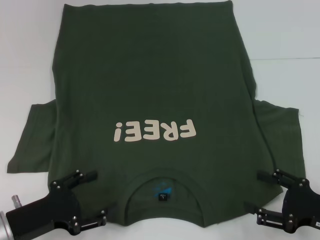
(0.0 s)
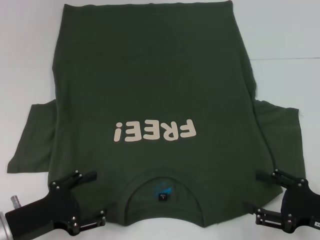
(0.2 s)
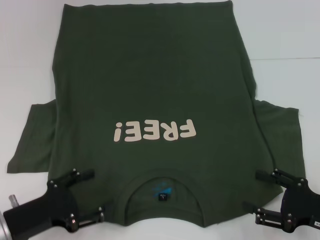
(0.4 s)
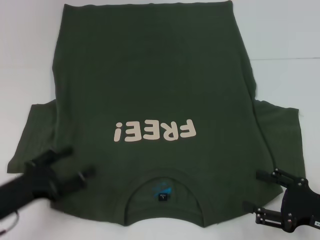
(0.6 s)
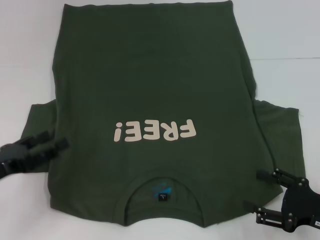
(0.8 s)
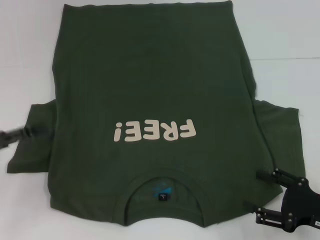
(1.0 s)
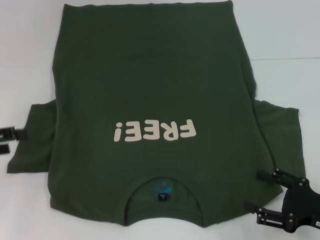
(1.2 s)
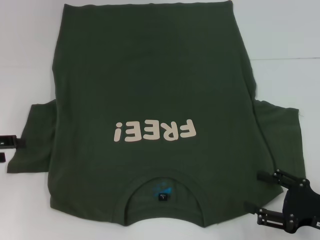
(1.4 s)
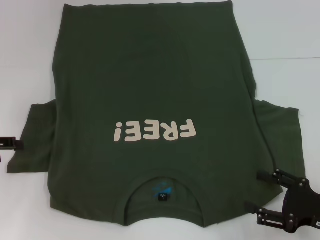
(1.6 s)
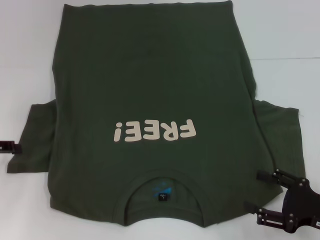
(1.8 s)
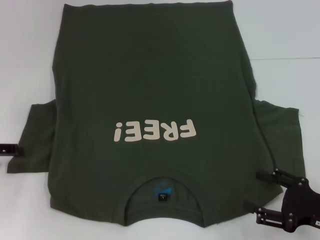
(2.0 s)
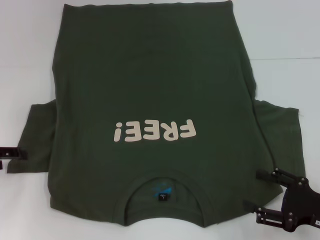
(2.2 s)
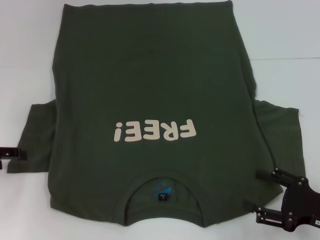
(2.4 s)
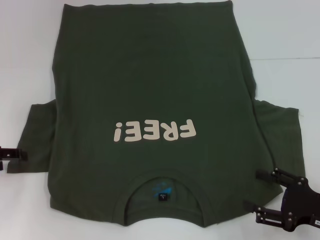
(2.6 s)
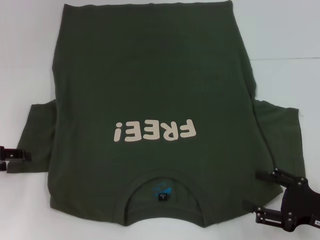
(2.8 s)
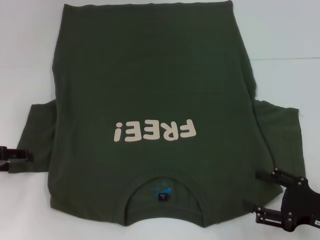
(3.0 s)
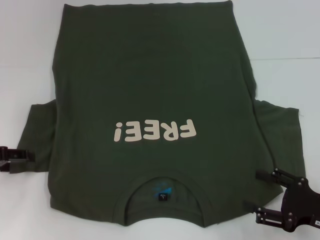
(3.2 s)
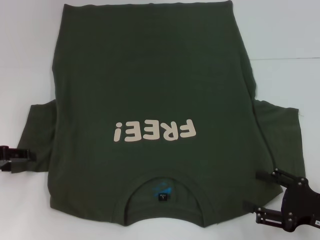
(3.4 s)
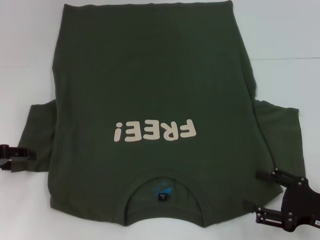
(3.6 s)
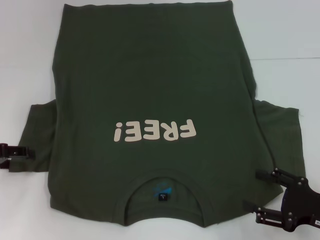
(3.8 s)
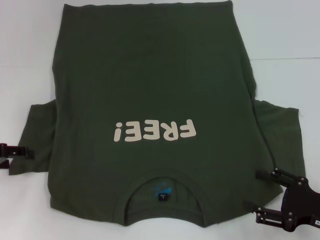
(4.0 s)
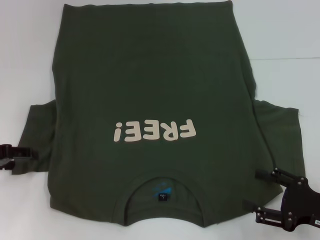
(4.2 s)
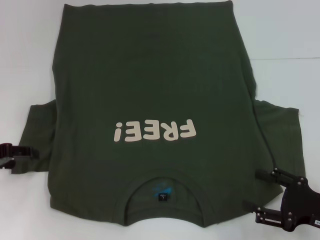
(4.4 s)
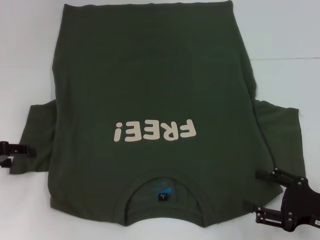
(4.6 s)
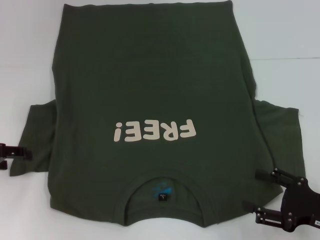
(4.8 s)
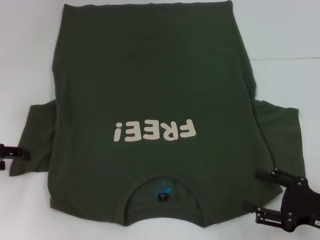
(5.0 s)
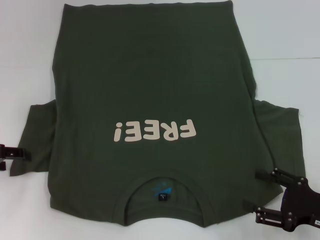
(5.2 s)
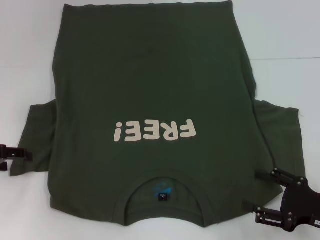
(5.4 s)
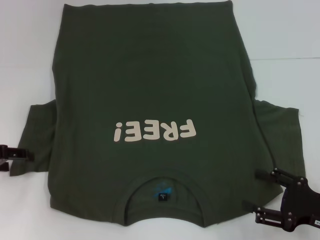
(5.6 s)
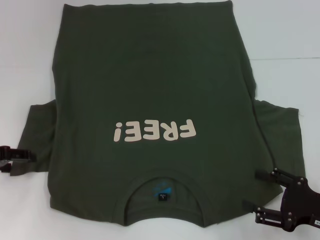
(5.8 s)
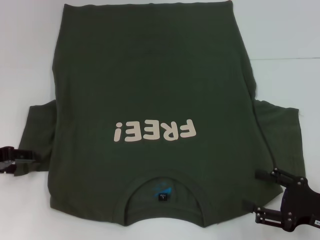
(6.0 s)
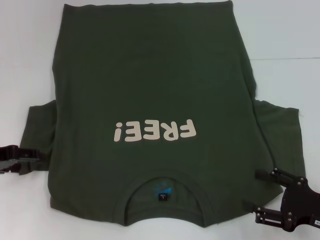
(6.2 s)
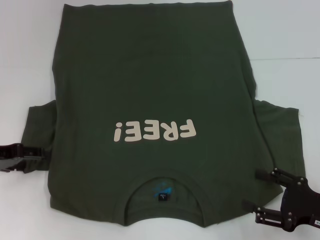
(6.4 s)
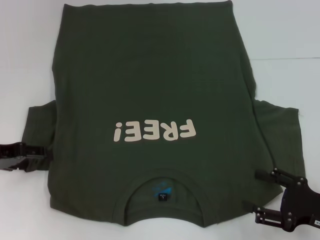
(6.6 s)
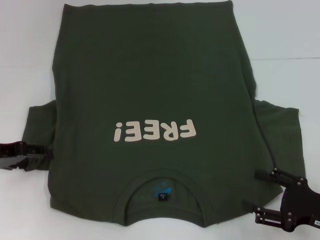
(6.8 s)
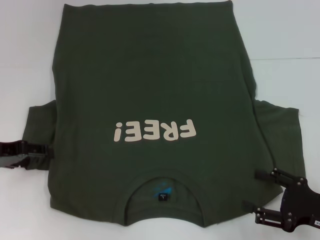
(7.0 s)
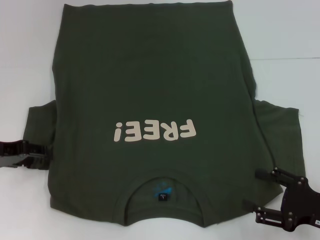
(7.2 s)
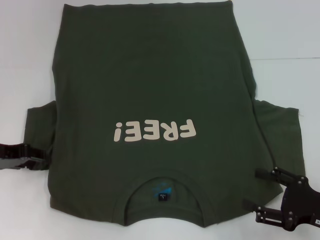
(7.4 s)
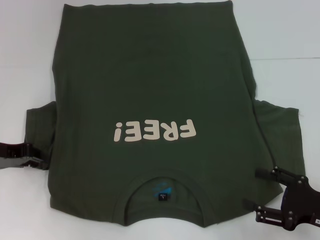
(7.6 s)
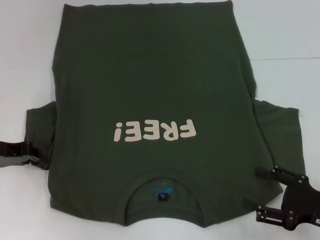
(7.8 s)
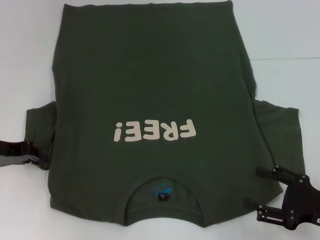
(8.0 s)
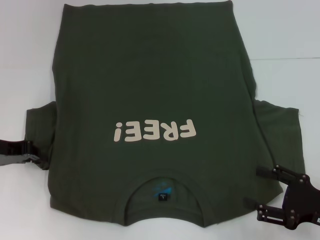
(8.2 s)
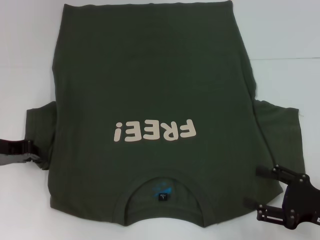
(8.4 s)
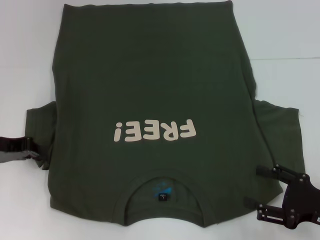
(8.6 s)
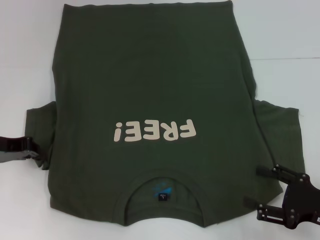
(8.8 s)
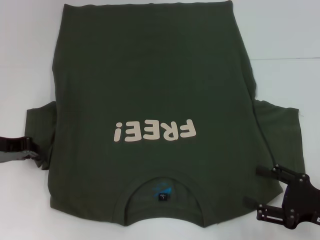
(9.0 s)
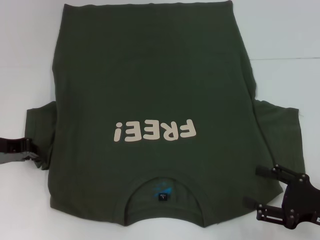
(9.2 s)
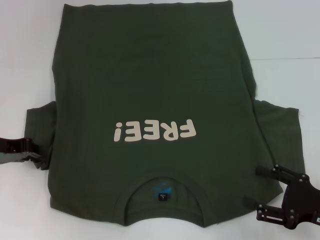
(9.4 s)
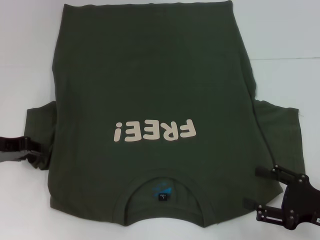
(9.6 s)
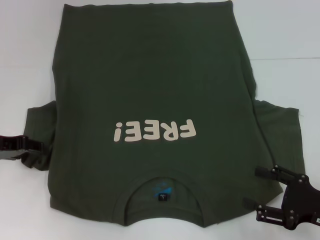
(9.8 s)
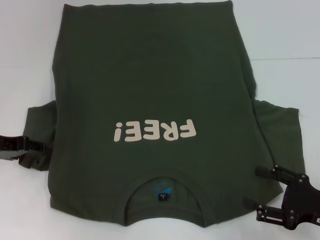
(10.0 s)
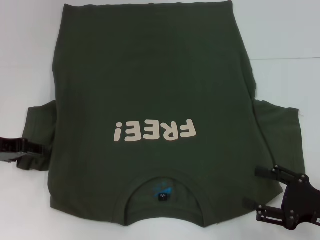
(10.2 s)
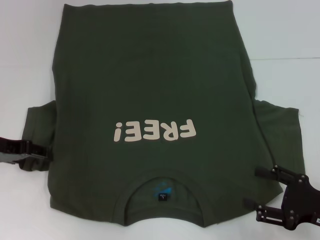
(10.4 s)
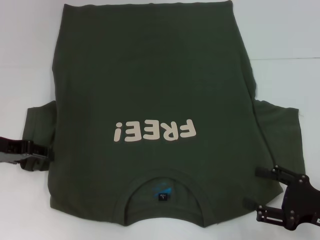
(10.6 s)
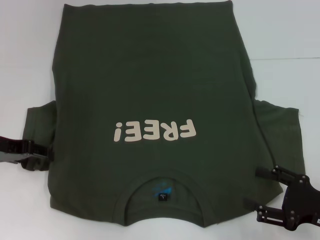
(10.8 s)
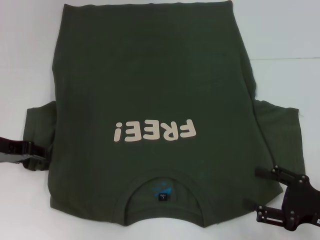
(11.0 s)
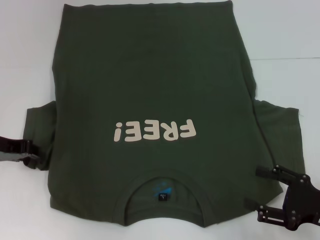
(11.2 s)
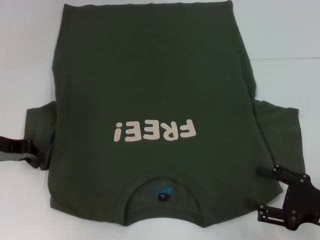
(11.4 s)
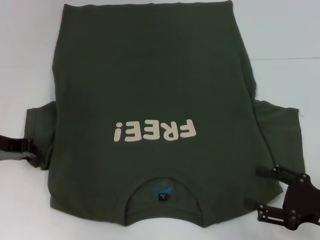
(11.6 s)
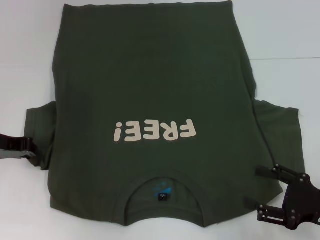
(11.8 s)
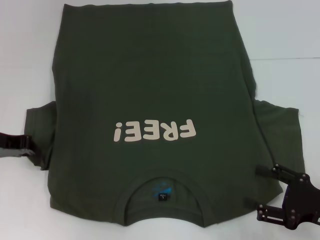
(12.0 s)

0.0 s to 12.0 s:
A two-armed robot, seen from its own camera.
0.0 to 1.6 s: The left gripper goes approximately 20 cm to the left, forward and upward.
1.6 to 3.0 s: The grippers make only small movements.
3.0 to 6.0 s: Both grippers stay put.
6.0 to 7.6 s: The left gripper closes.
7.6 to 9.0 s: The left gripper closes its fingers.
9.0 to 10.4 s: The left gripper opens up.
10.4 to 12.0 s: The left gripper closes up.

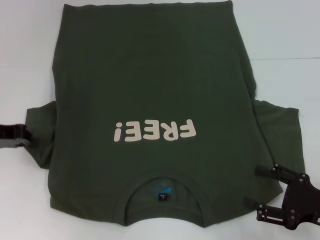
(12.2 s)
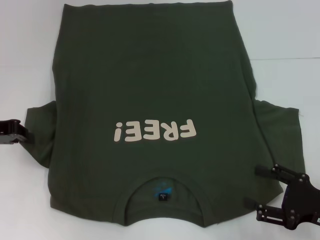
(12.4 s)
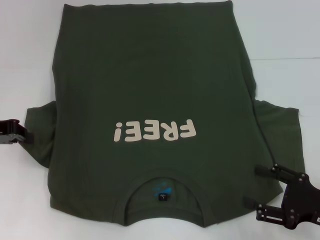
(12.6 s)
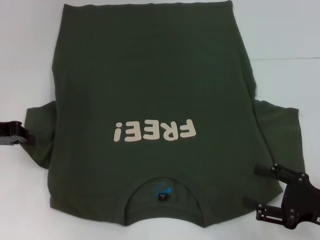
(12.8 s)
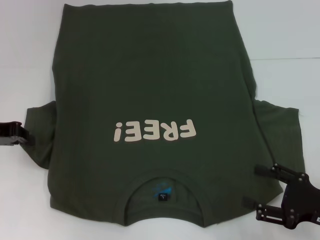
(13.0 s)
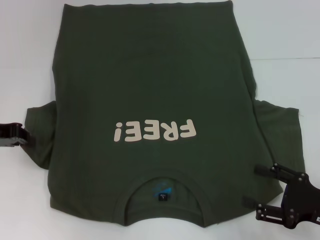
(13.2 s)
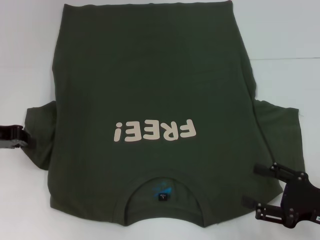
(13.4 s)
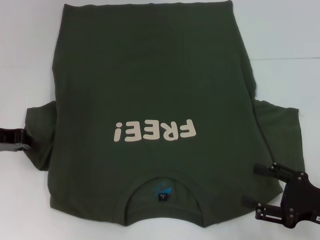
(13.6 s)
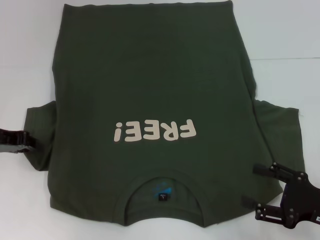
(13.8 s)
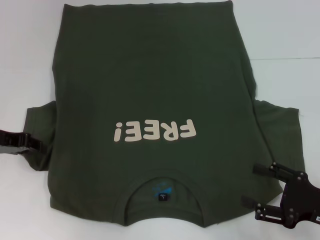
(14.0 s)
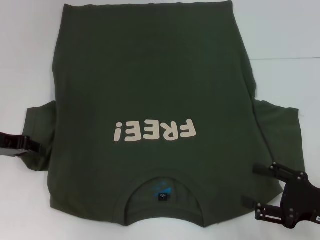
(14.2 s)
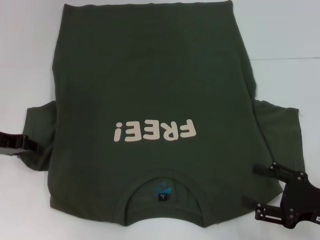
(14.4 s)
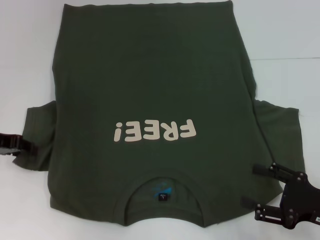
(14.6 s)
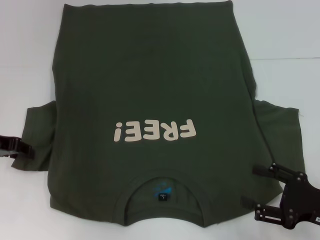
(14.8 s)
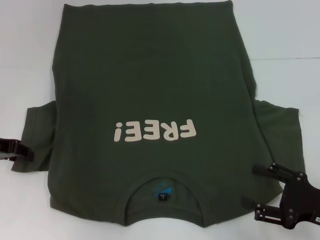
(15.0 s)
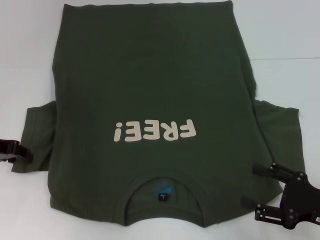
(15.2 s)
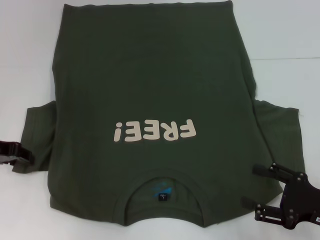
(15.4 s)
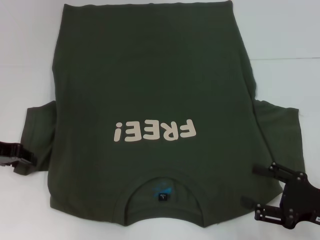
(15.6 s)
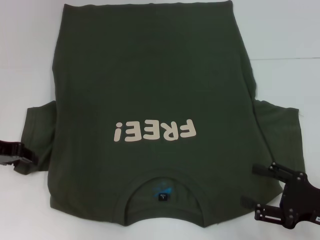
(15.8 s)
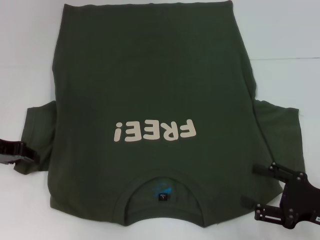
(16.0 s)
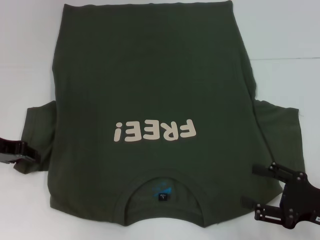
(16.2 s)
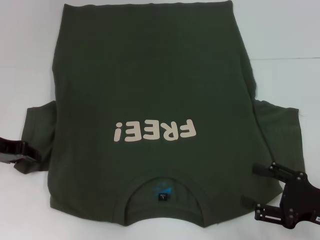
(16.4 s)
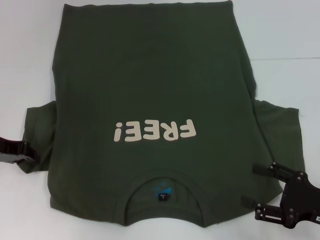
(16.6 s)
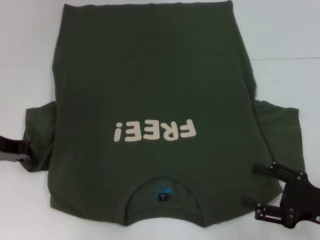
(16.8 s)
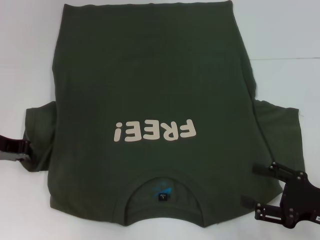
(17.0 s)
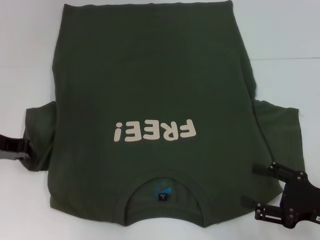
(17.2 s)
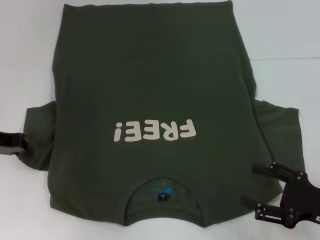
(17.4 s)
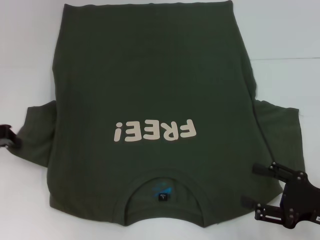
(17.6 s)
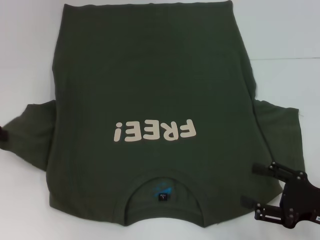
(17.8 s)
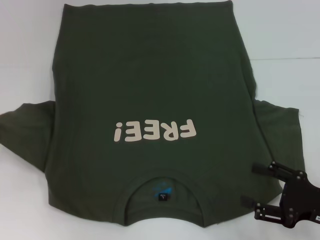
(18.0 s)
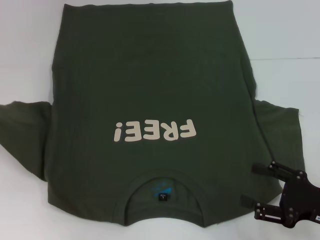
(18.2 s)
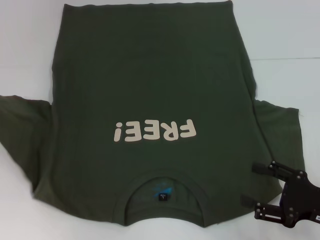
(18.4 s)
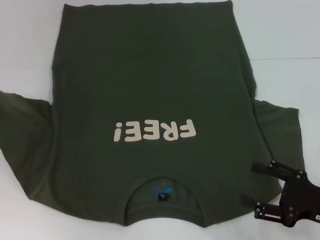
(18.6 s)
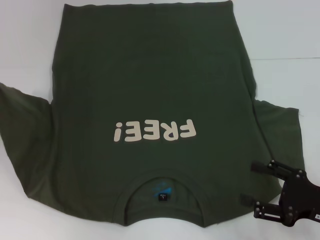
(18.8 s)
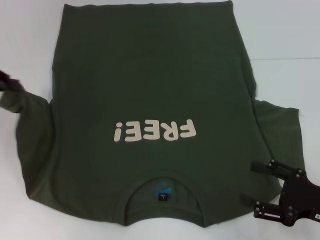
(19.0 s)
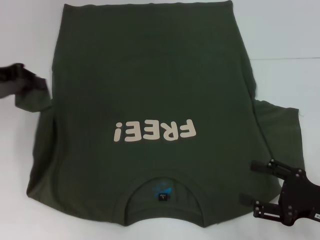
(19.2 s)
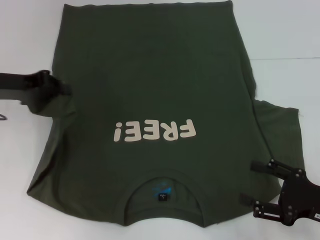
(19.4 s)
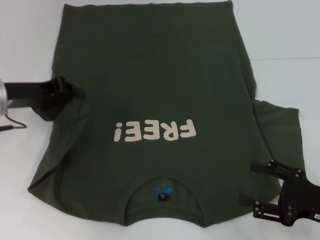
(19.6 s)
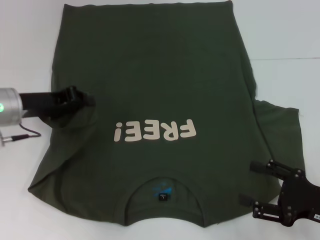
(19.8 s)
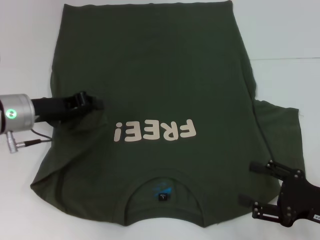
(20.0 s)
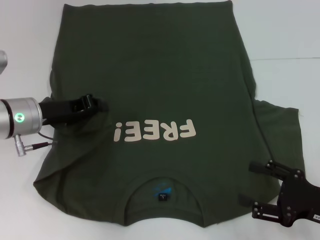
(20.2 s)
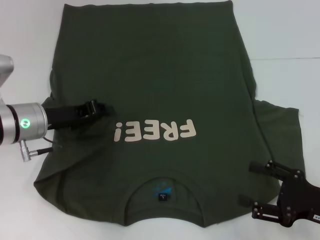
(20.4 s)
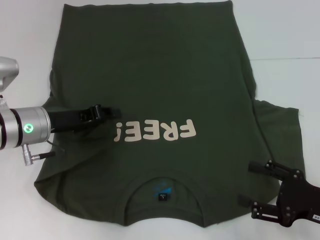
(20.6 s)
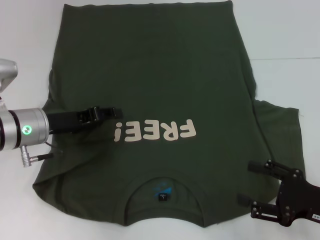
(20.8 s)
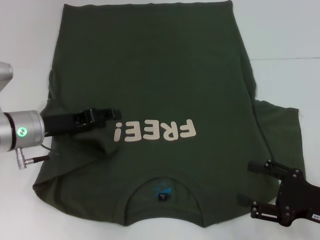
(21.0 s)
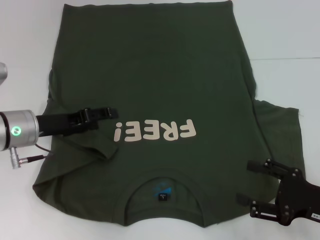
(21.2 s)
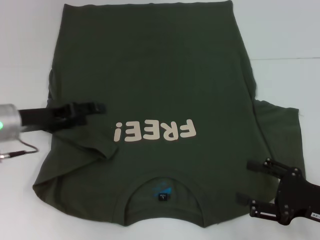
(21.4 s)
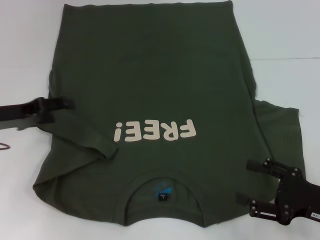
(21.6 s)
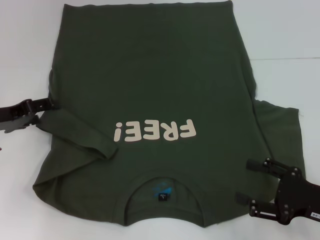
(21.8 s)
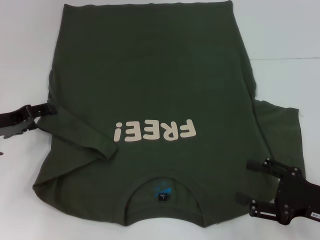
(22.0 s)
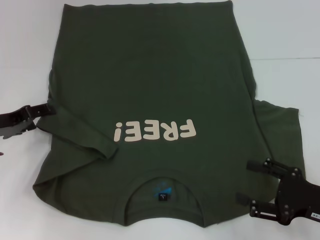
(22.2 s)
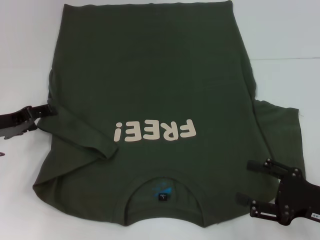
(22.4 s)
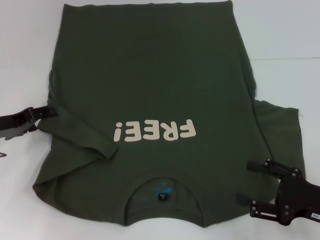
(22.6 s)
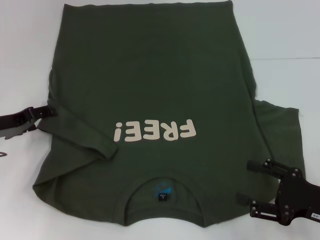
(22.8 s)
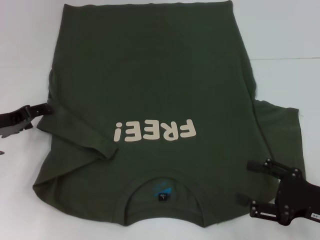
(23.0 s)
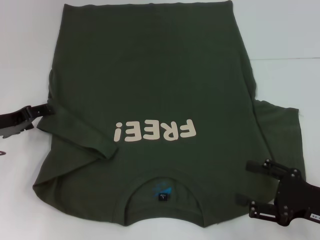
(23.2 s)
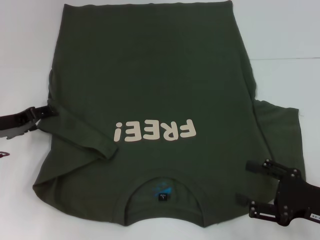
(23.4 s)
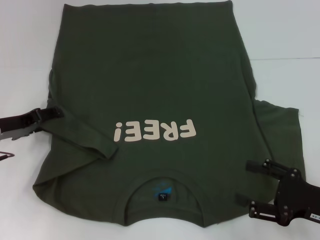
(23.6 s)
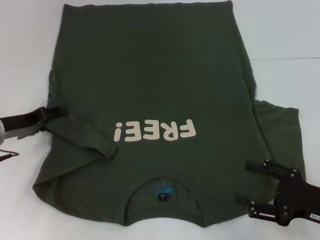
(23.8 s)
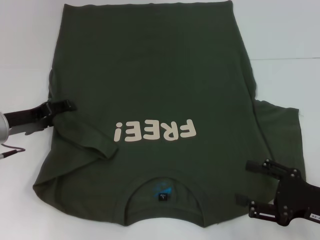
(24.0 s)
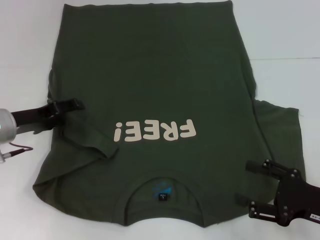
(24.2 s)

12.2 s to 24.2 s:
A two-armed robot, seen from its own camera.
12.2 to 15.2 s: The grippers stay close to where they were, moving slightly.
15.2 to 16.6 s: Both grippers stay put.
16.6 to 18.2 s: The left gripper heads to the left and upward, covering approximately 10 cm.
18.2 to 19.8 s: The left gripper is displaced to the right and downward by some 15 cm.
19.8 to 21.2 s: The left gripper opens up.
21.2 to 22.6 s: The left gripper heads to the left, covering some 5 cm.
22.6 to 24.2 s: The grippers make only small movements.
